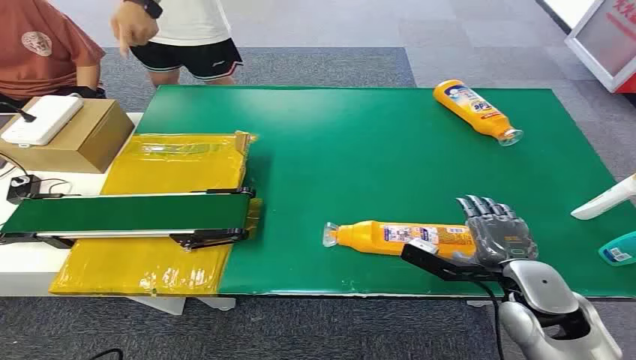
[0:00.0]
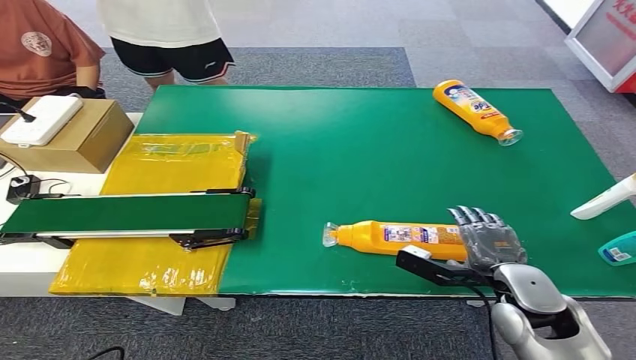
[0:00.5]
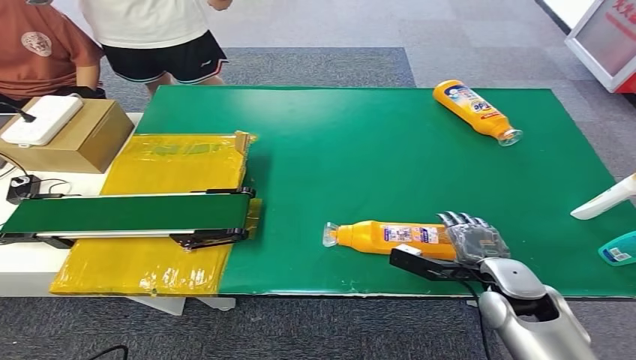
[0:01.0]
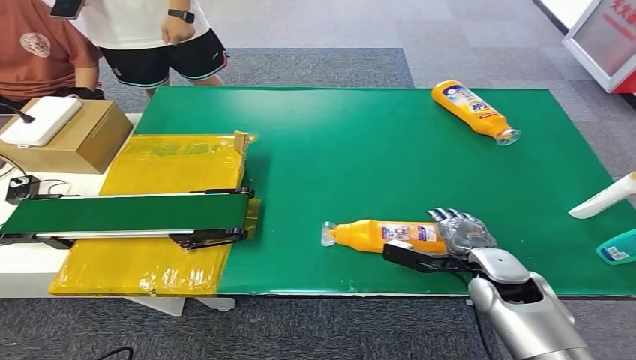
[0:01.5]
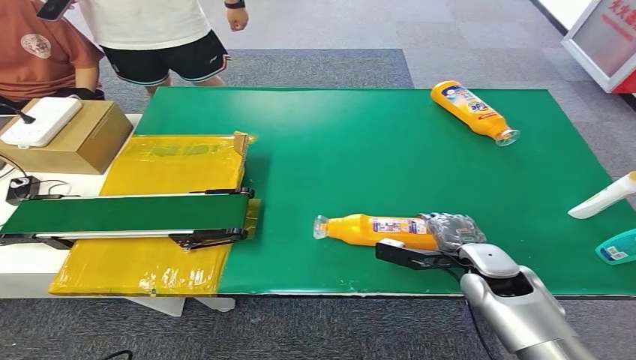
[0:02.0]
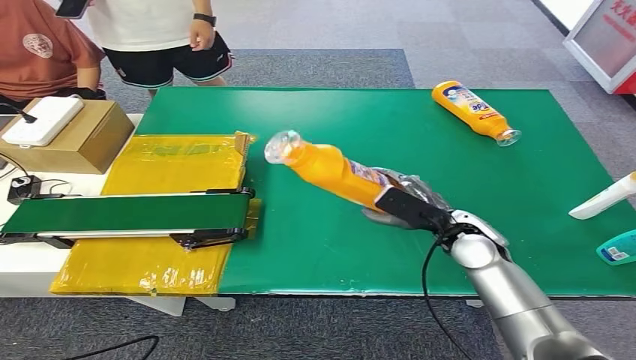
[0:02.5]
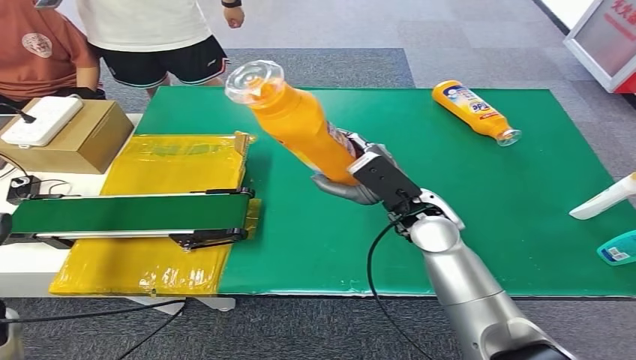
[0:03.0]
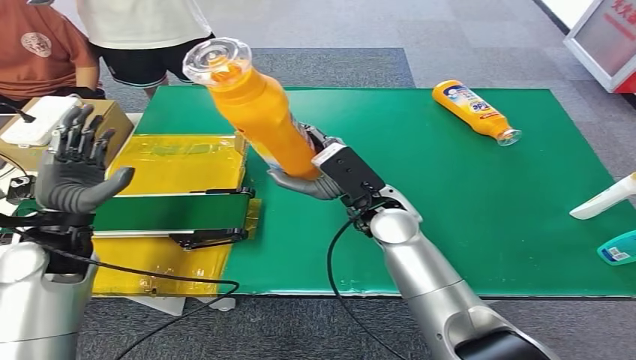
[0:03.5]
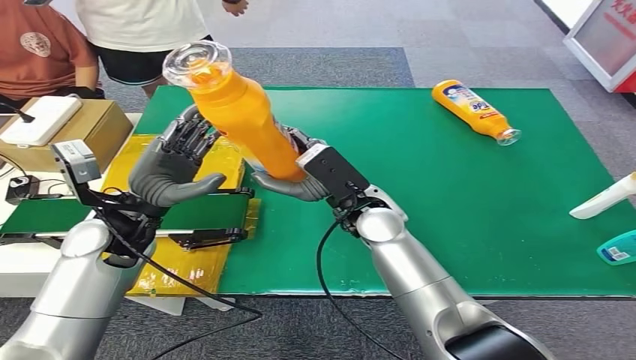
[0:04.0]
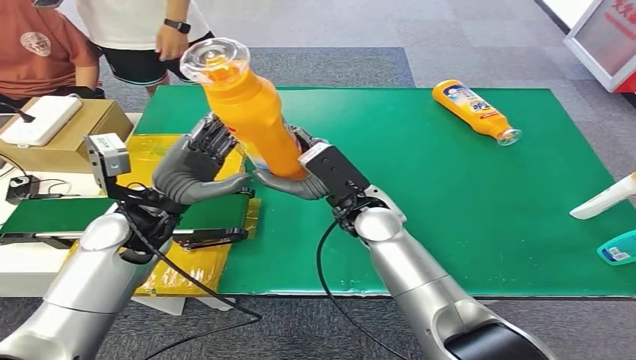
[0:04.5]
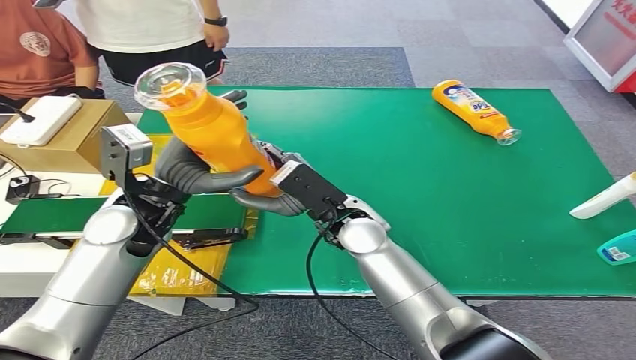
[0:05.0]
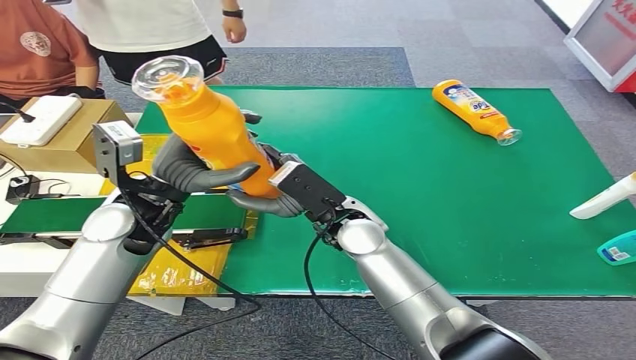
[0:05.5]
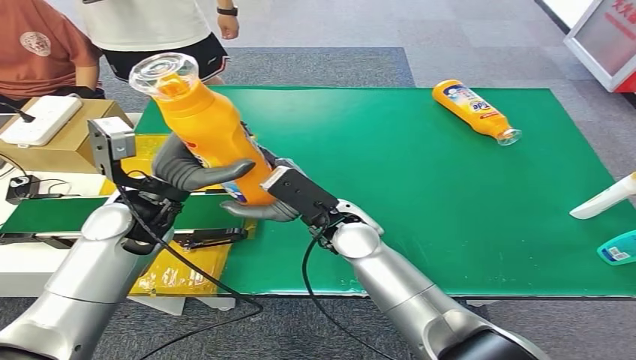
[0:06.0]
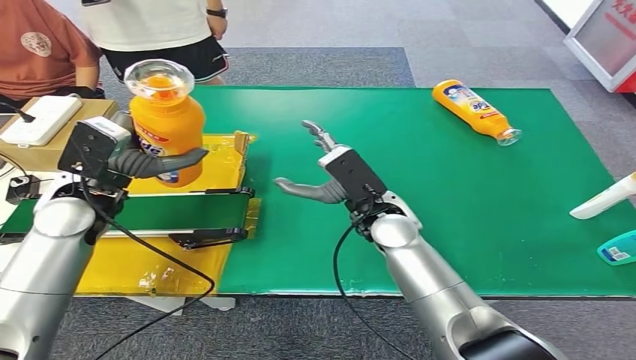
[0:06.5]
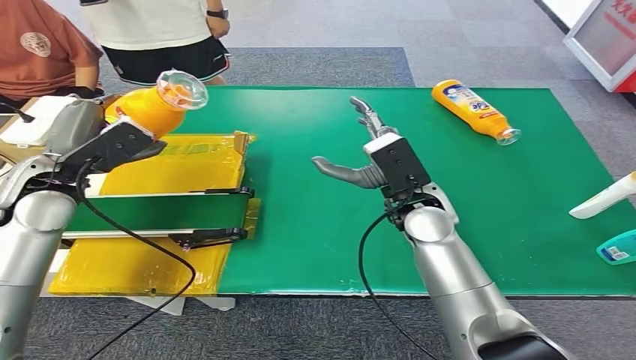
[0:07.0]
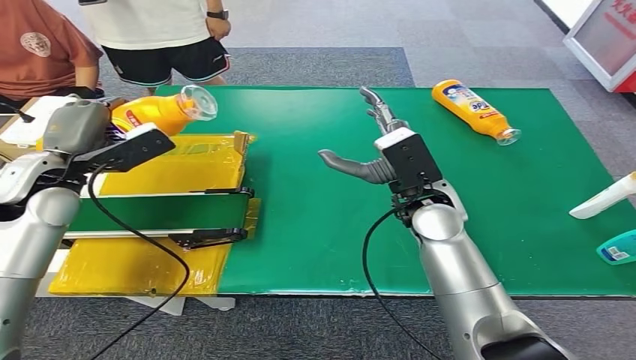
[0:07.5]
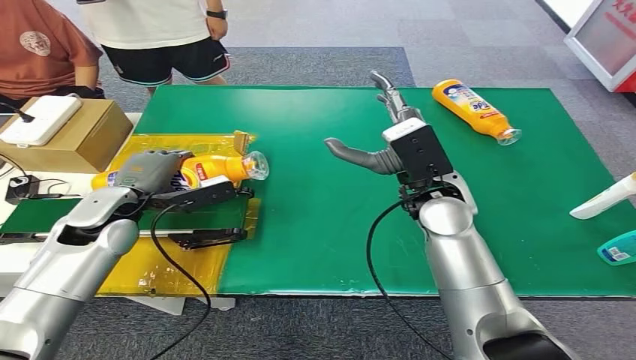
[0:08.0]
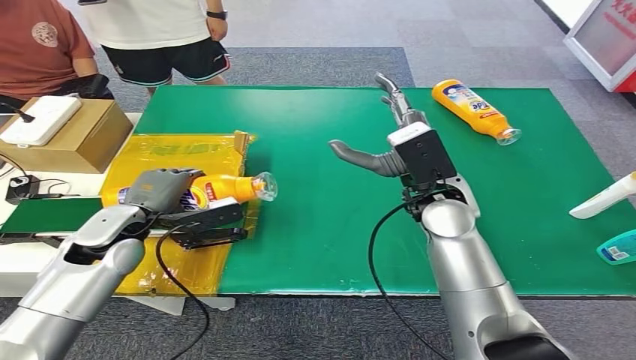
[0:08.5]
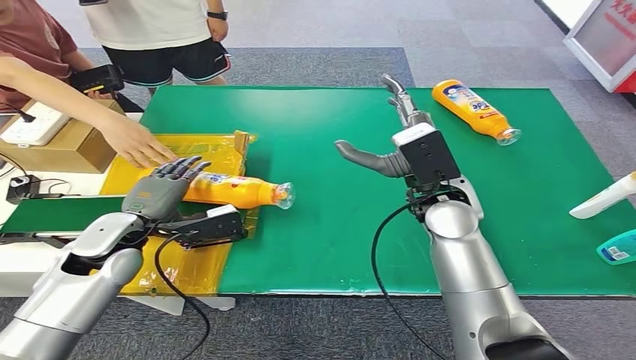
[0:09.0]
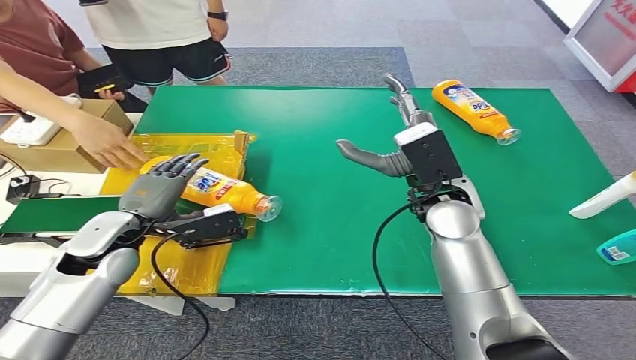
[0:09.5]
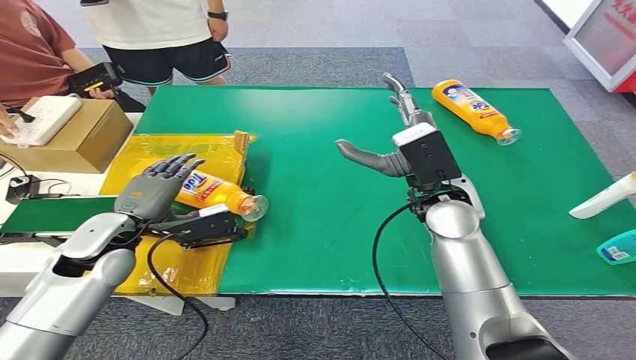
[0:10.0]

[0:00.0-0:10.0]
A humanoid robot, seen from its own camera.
Step, 0:00.0 to 0:02.5: Pick up the bottle from the table.
Step, 0:03.0 to 0:10.0: Turn the bottle to the front side.
0:08.0 to 0:10.0: The left hand ends up about 5 cm from where it was.
